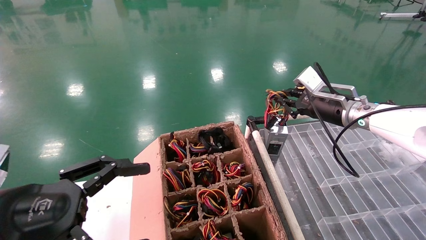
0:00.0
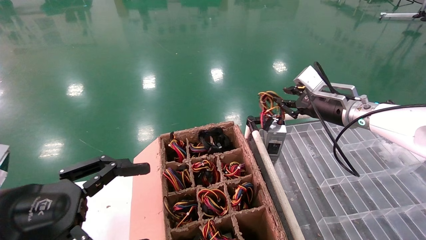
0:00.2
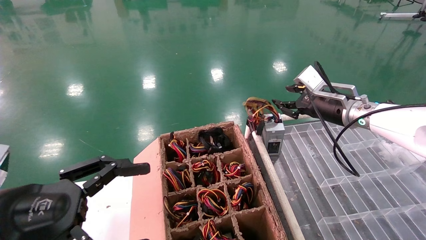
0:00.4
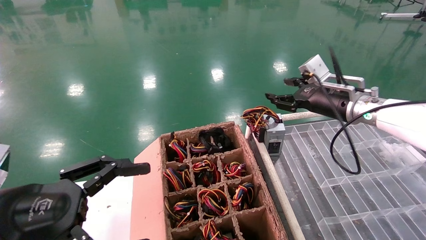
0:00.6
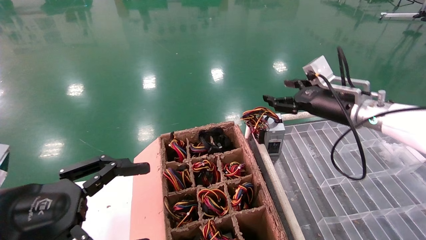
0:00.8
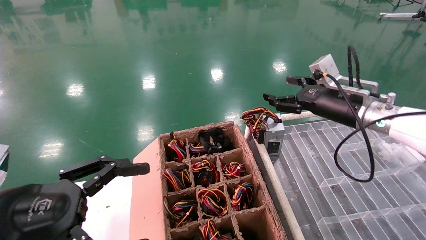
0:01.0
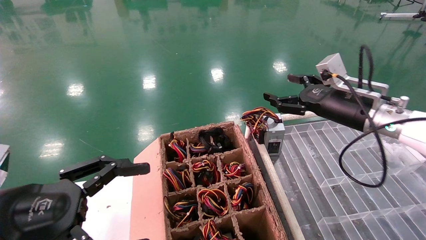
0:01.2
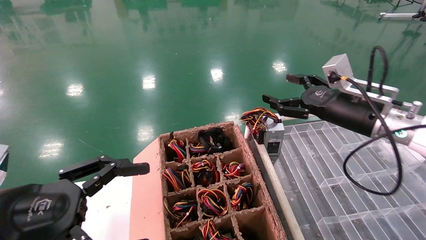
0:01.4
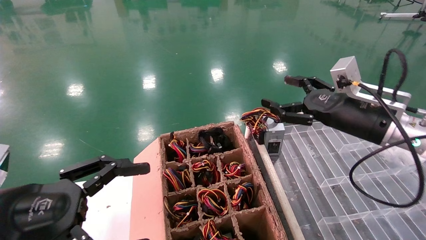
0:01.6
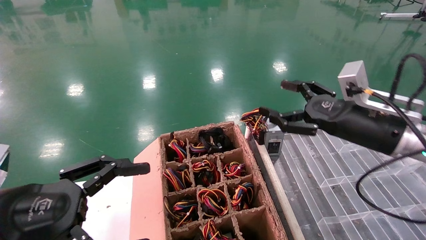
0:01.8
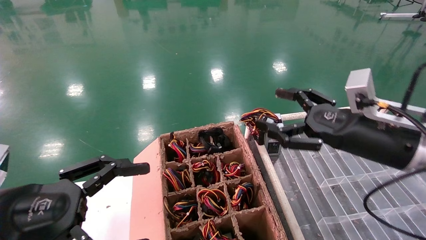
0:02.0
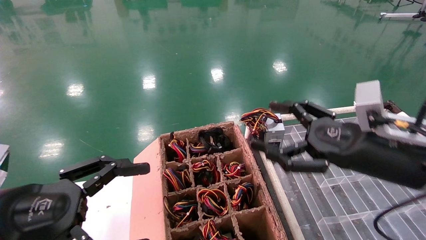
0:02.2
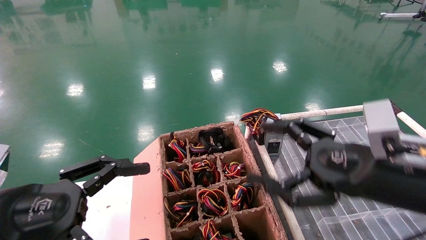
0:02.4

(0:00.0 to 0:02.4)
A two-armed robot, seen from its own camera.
0:00.0 - 0:01.2: The right gripper travels backward by about 5 cm, and opens.
0:01.2 - 0:02.4: The right gripper is displaced backward by roughly 15 cm.
